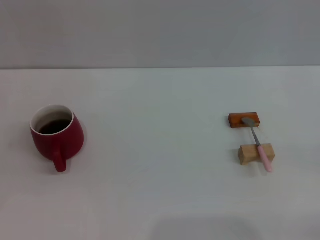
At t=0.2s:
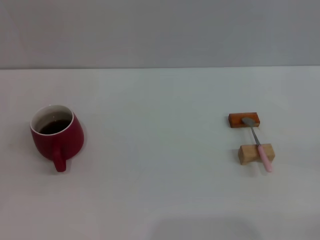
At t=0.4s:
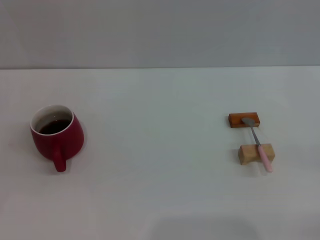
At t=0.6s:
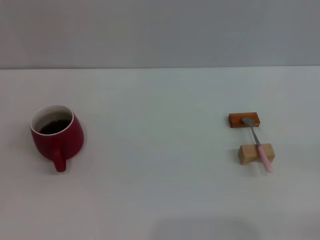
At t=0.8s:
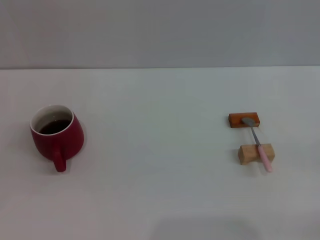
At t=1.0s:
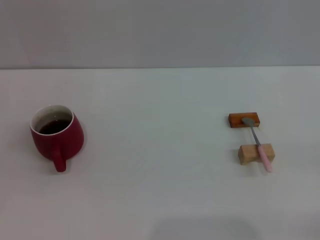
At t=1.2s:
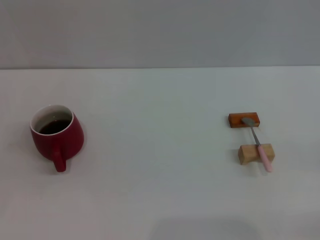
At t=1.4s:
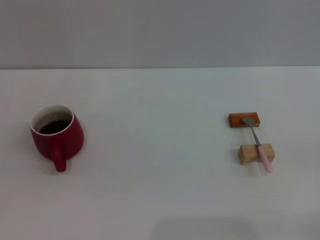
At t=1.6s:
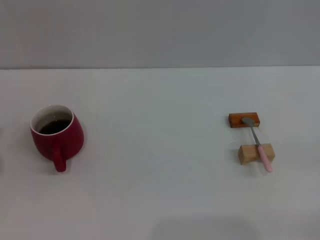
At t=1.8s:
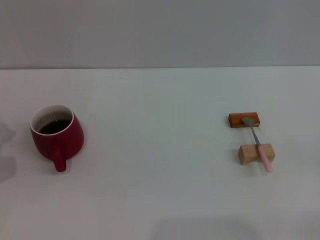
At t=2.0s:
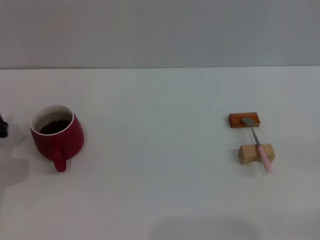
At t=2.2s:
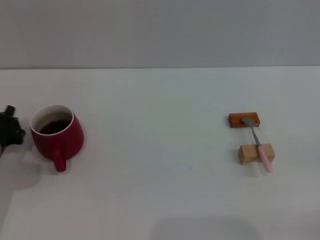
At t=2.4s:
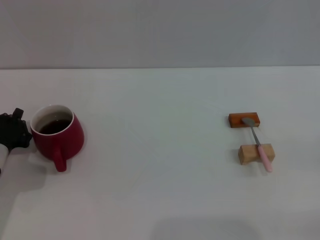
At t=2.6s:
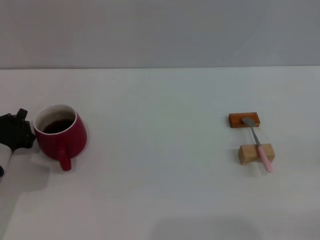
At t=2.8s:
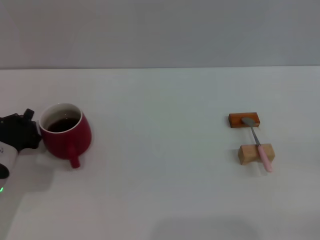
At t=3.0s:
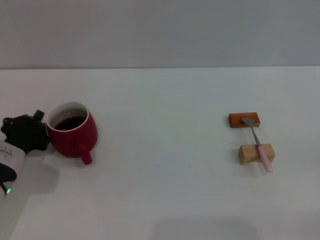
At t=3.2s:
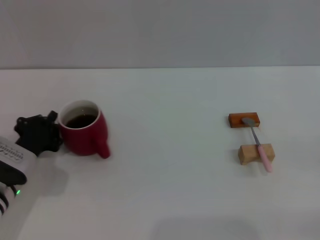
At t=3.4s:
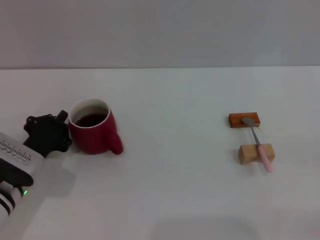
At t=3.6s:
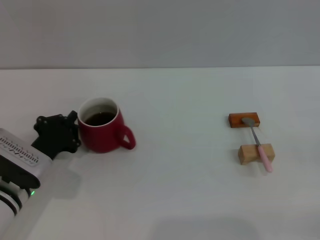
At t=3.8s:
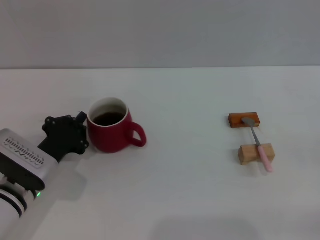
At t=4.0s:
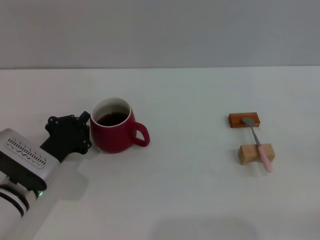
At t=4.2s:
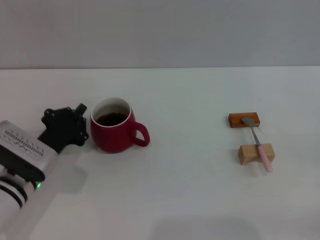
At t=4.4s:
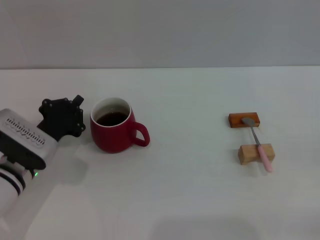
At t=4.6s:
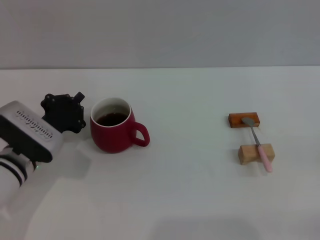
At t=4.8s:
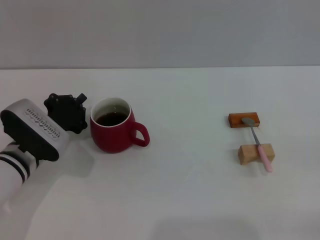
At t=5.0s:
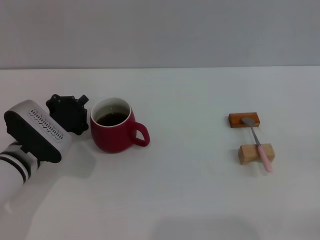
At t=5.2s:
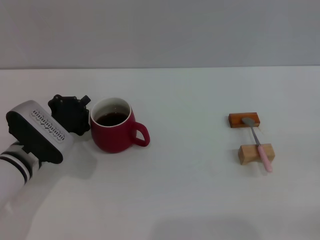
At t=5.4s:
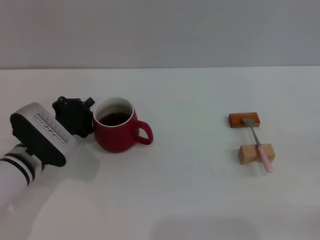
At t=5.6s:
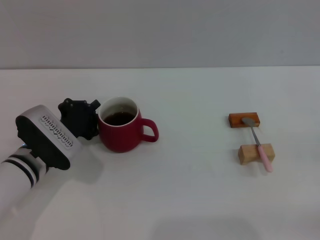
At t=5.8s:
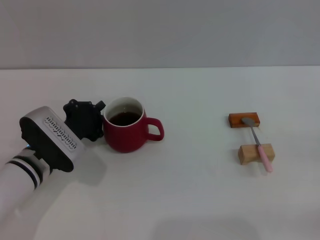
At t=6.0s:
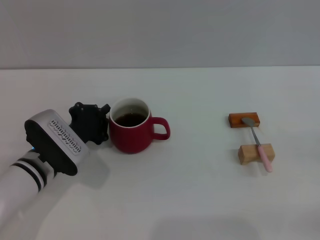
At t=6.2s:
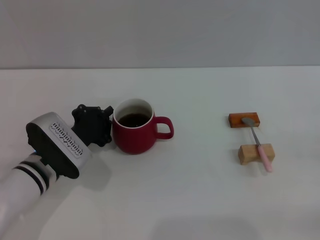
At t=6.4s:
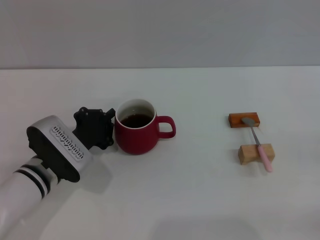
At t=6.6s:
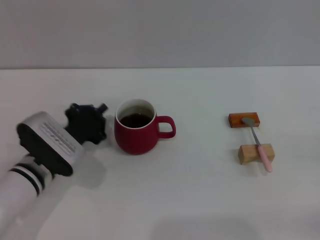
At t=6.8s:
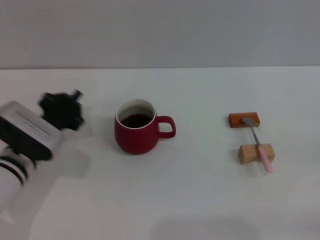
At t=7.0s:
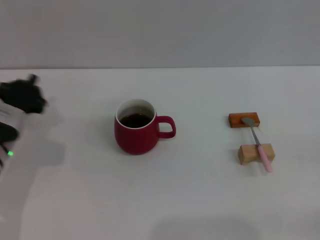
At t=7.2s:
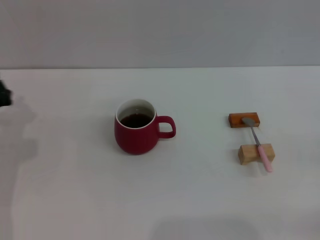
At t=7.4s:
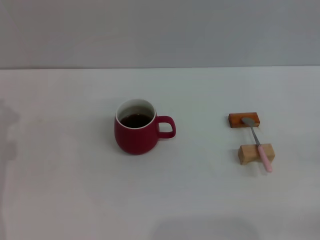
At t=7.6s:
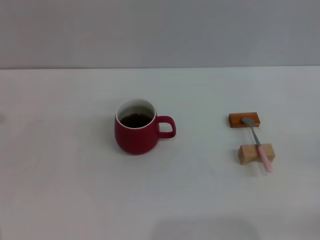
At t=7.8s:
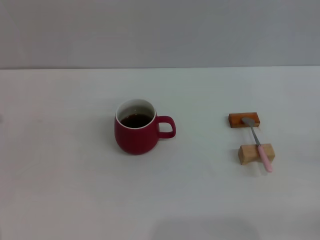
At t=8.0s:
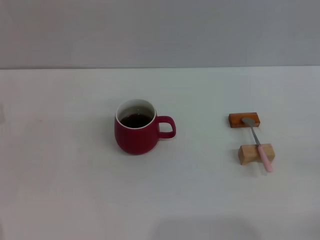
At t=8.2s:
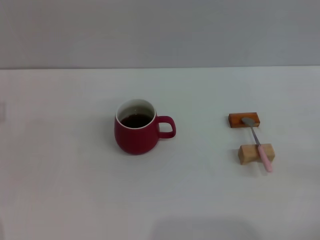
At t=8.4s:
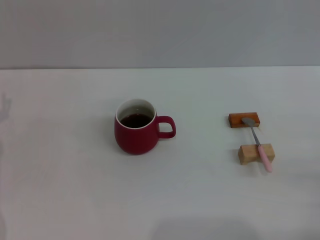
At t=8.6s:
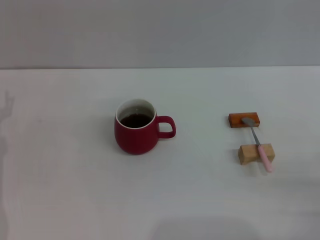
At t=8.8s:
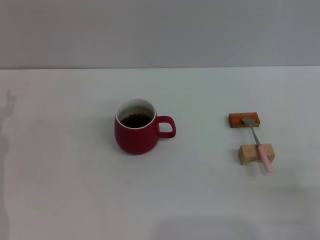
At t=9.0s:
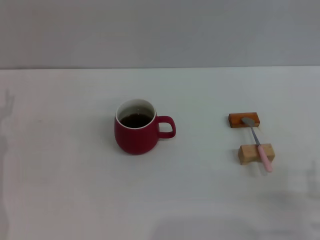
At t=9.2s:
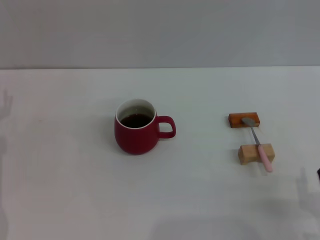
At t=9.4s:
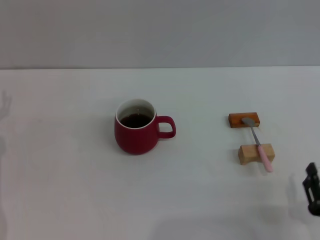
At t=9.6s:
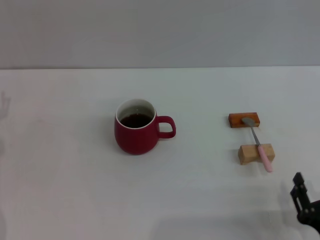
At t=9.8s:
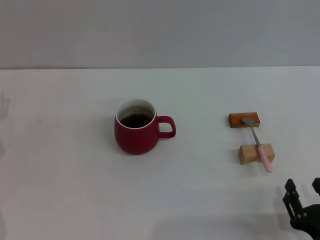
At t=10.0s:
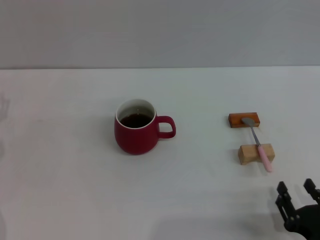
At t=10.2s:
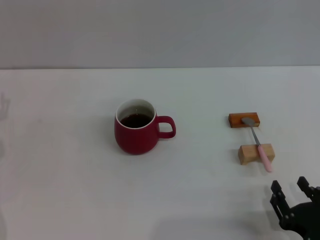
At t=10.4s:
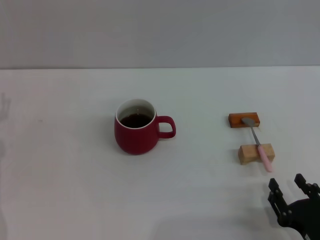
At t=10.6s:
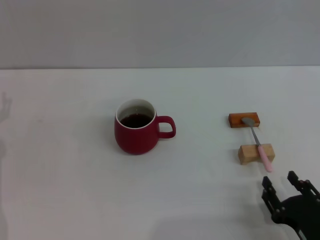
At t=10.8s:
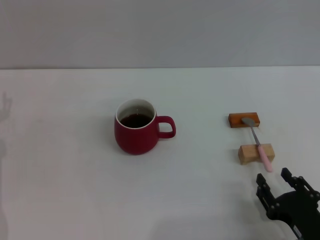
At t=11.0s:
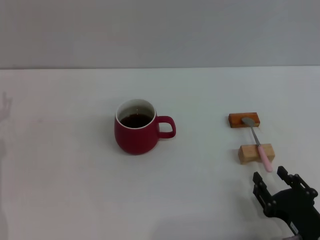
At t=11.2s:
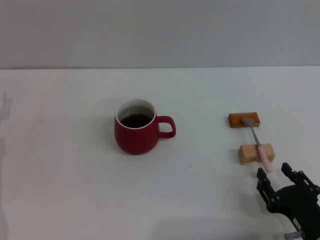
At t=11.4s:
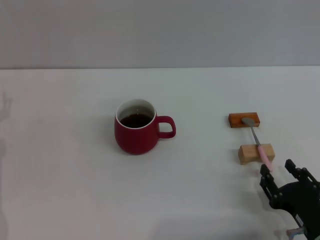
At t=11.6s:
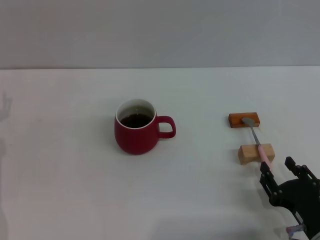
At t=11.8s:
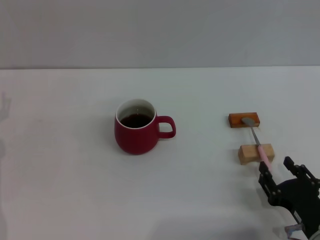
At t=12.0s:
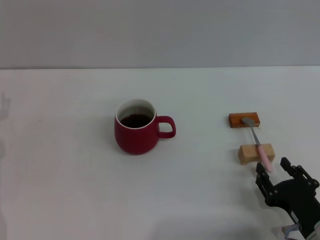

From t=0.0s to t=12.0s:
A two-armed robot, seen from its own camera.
Task of the whole recording: Move the red cup to the center, lift the pink spoon, stir it three times in the cup, and put the spoon into the cup.
Step, from t=0.0s to t=6.6s: Move the cup with coffee to the center of view with the left gripper.
From t=1.6s to t=3.0s: The left gripper travels to the right by roughly 5 cm.
From t=3.0s to t=4.4s: There are only small adjustments of the grippers.
From t=4.4s to t=6.0s: The grippers move only a little.
From t=6.0s to t=7.6s: The left gripper heads to the left, covering about 15 cm.
From t=7.6s to t=9.0s: The right gripper is displaced to the left and backward by approximately 15 cm.
From t=10.4s to t=12.0s: The grippers stay close to where they were, moving slightly.

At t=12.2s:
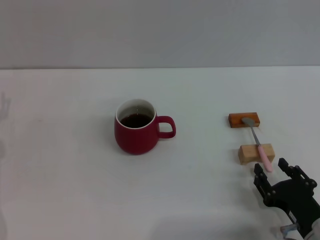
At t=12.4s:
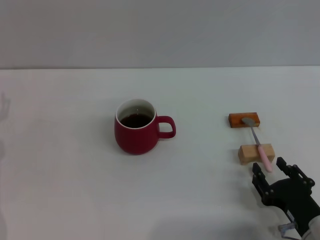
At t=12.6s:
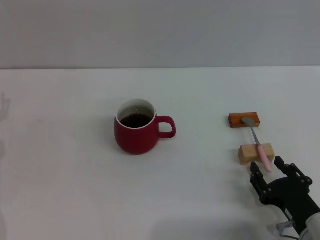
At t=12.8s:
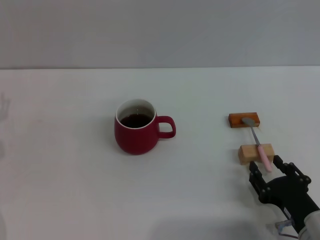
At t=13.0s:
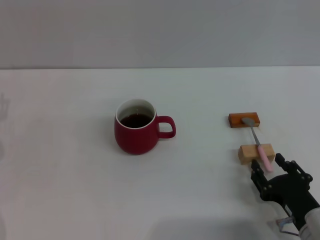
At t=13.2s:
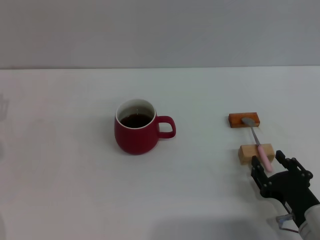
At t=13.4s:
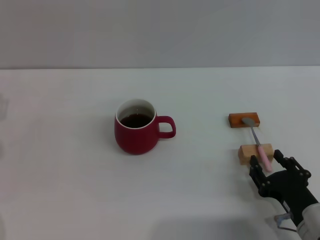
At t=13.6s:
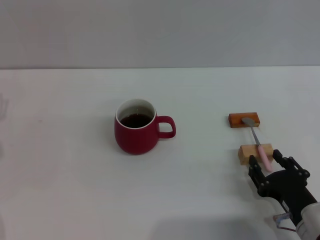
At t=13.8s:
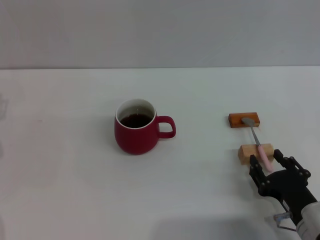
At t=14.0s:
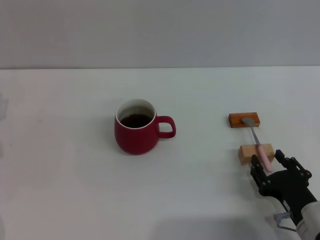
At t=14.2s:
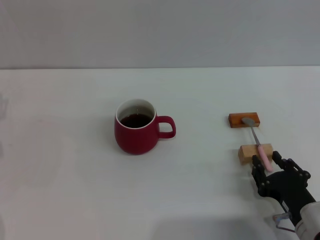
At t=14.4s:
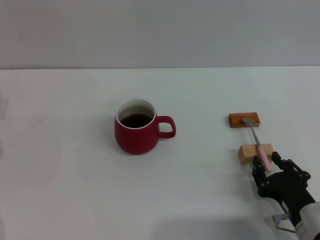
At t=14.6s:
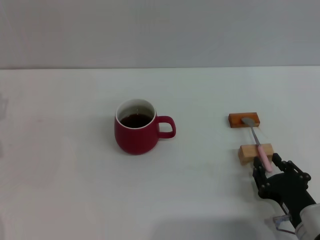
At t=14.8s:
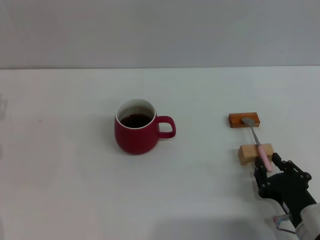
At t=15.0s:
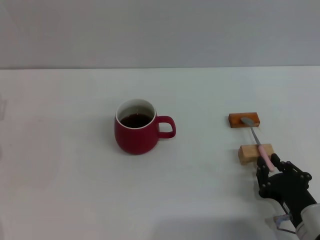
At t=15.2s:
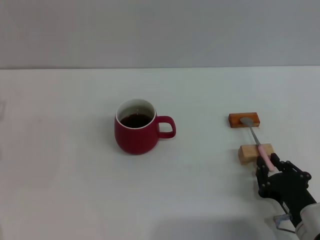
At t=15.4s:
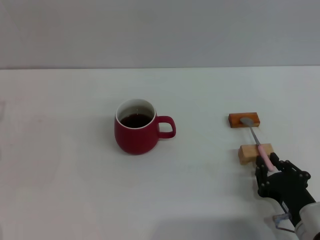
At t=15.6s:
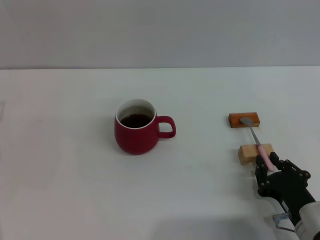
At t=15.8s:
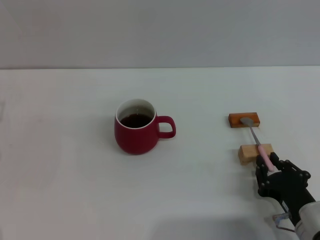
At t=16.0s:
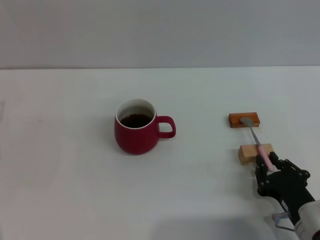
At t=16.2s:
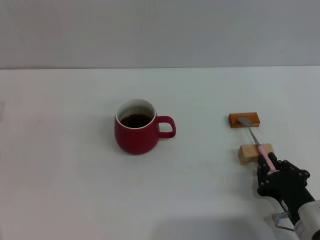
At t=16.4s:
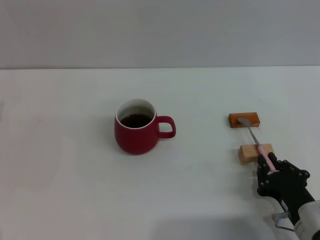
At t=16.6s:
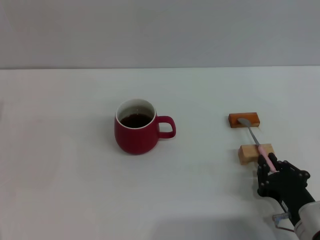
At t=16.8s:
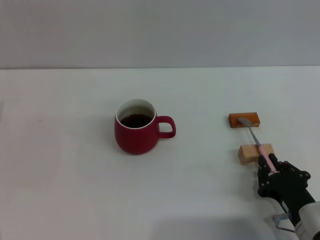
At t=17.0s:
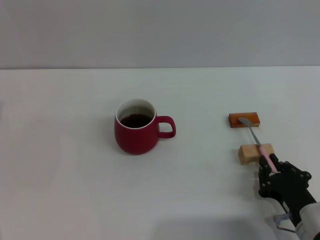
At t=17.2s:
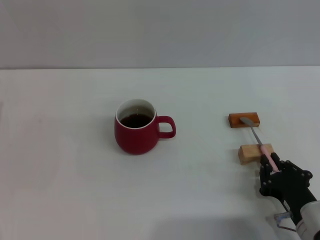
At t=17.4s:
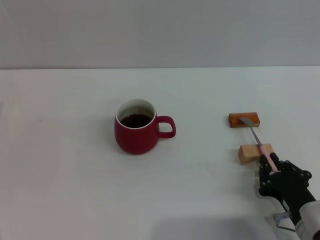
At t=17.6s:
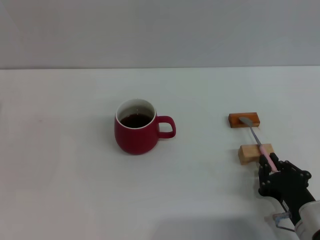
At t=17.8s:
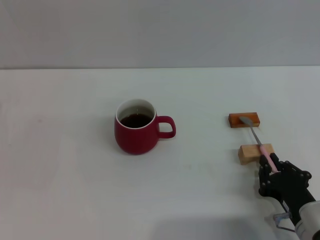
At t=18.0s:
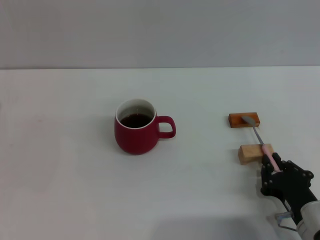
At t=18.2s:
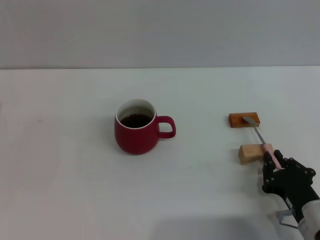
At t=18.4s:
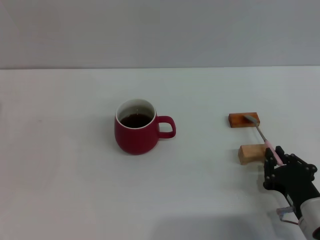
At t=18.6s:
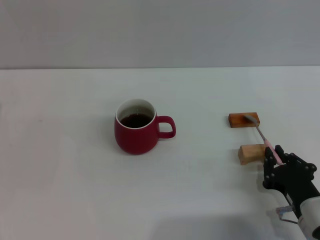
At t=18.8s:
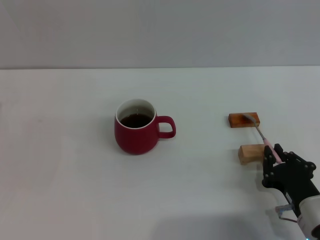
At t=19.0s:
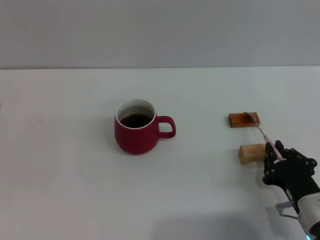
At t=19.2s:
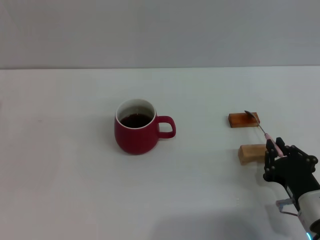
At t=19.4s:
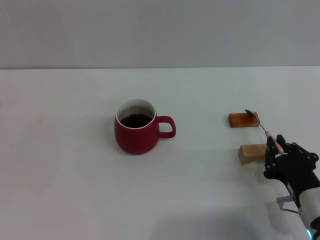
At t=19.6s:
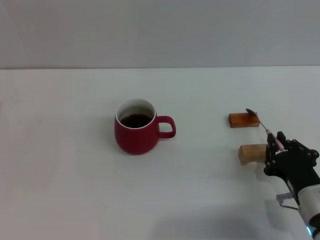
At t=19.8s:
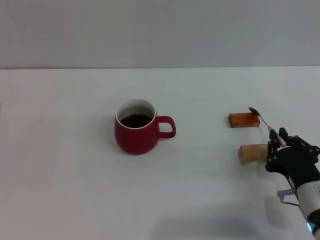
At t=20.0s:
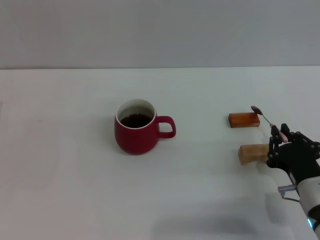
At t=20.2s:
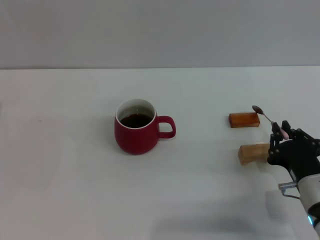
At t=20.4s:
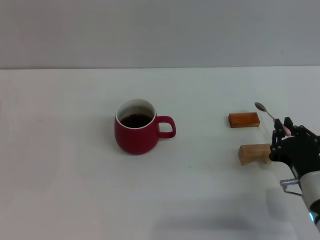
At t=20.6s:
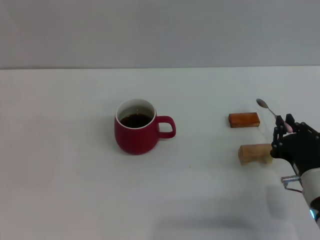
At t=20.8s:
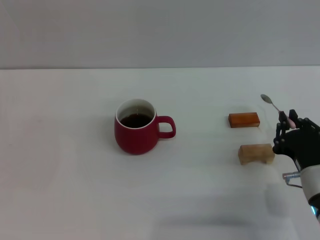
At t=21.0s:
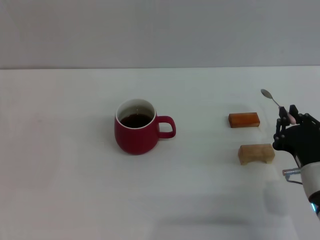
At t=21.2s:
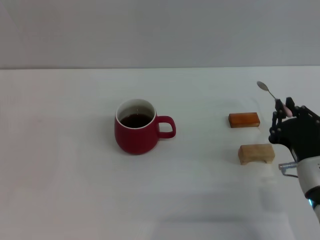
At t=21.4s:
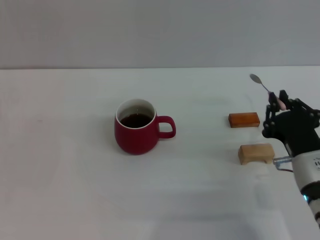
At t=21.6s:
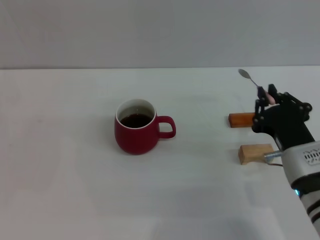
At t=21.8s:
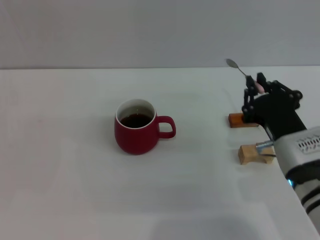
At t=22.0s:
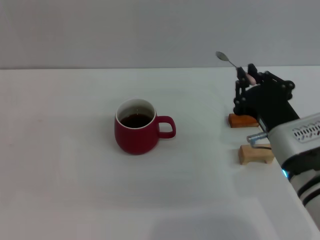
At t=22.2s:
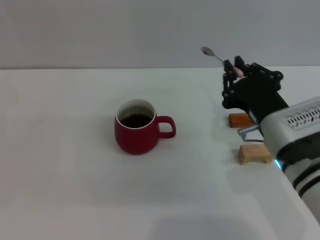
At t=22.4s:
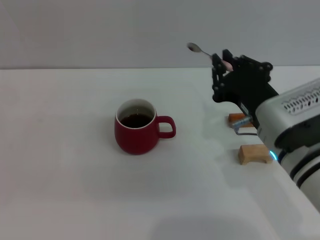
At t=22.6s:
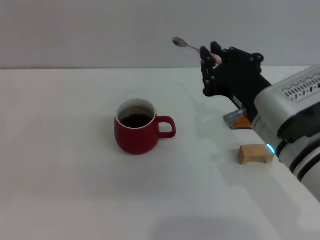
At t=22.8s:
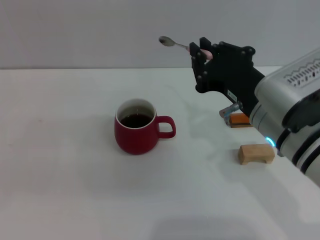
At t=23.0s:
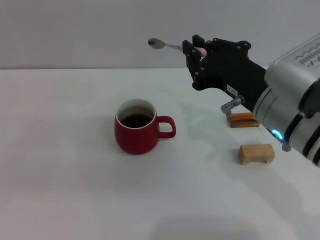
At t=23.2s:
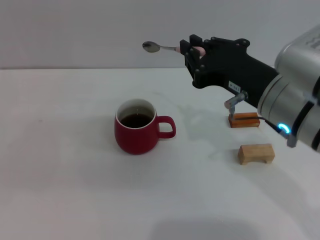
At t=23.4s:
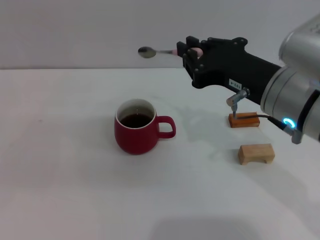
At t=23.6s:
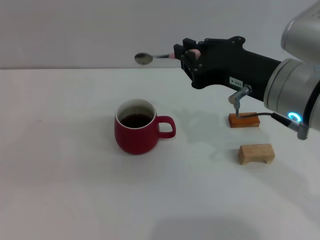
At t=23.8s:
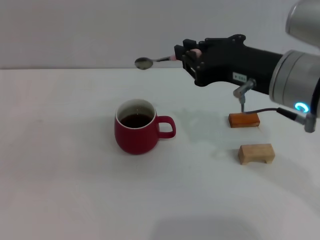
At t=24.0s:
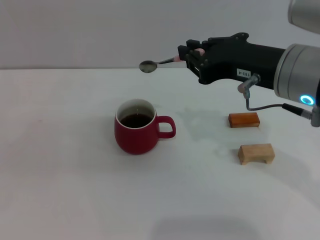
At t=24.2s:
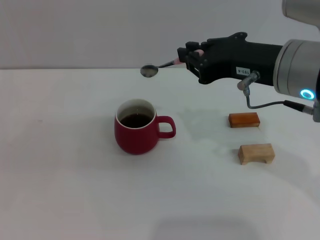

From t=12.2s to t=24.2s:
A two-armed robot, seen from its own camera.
Task of the whole recording: Move the red cup to the center, lift the pink spoon, stir it three times in the cup, and put the spoon into the cup.
Step, from t=12.2s to t=20.8s: Pick up the spoon with the right gripper.
From t=12.2s to t=13.8s: The grippers make only small movements.
From t=13.8s to t=15.2s: The right gripper closes its fingers.
From t=15.2s to t=18.2s: Neither gripper changes place.
From t=18.2s to t=19.8s: There are only small adjustments of the grippers.
From t=19.8s to t=21.2s: The grippers stay close to where they were, moving slightly.
From t=21.2s to t=22.6s: The right gripper is displaced upward and to the left by some 15 cm.
From t=22.6s to t=24.2s: The right gripper travels upward by some 10 cm.
